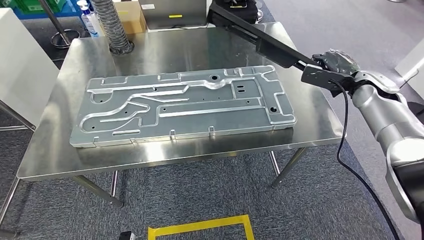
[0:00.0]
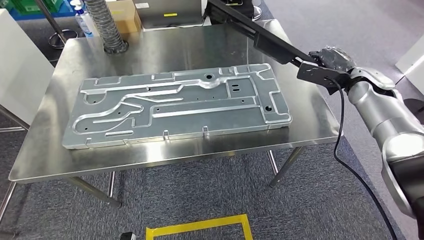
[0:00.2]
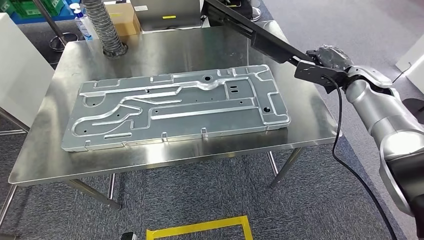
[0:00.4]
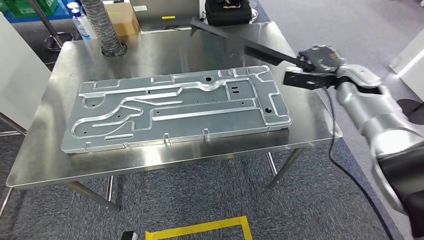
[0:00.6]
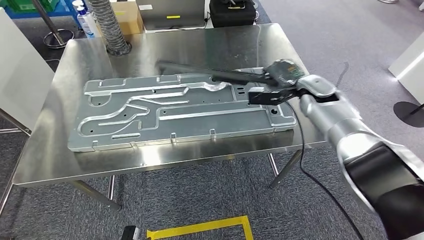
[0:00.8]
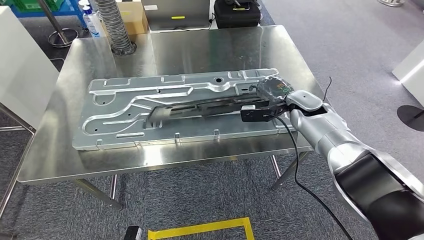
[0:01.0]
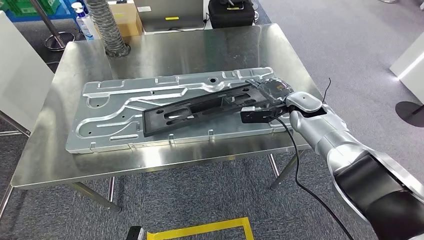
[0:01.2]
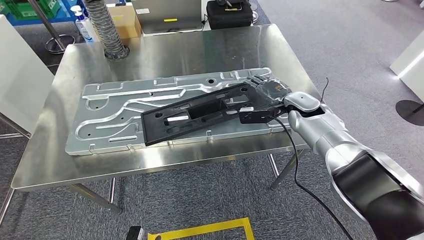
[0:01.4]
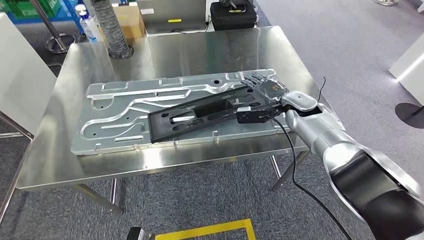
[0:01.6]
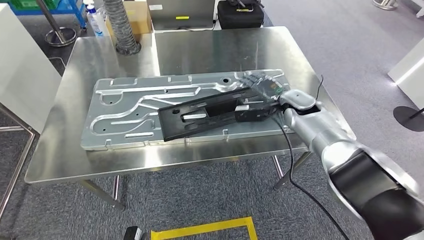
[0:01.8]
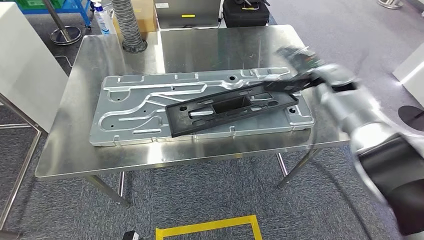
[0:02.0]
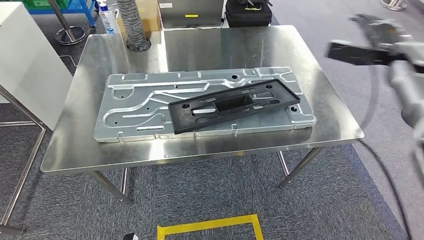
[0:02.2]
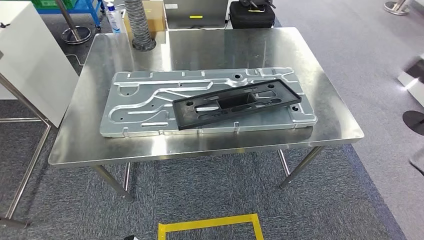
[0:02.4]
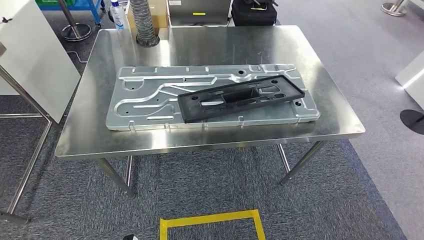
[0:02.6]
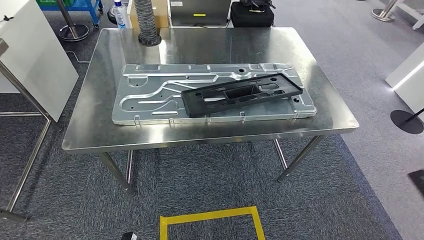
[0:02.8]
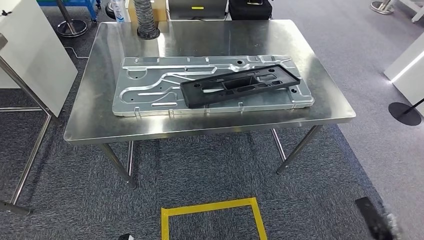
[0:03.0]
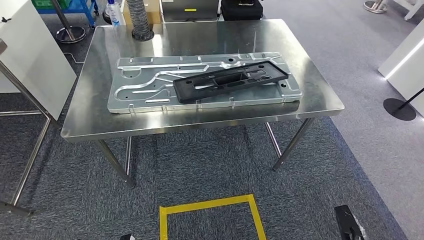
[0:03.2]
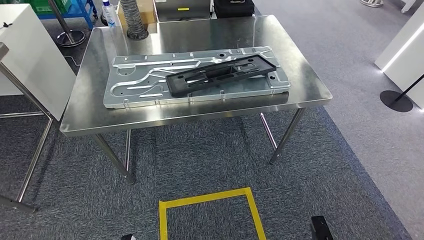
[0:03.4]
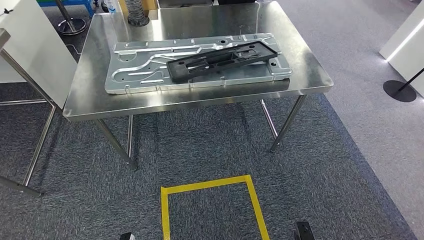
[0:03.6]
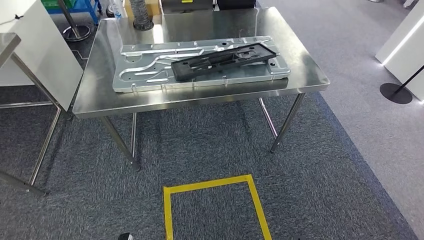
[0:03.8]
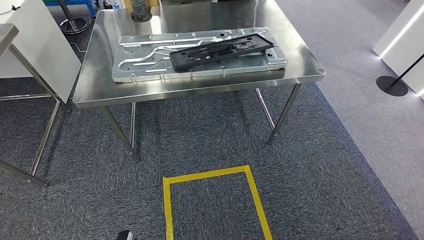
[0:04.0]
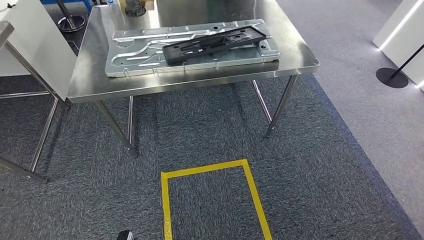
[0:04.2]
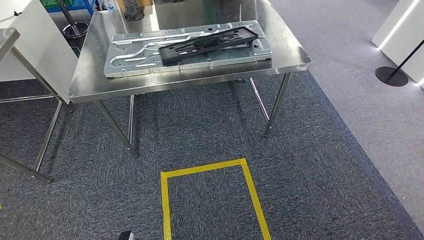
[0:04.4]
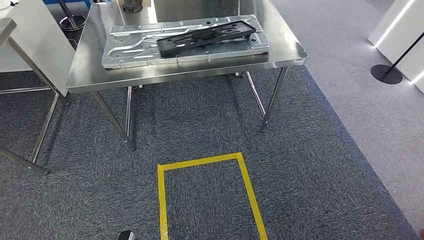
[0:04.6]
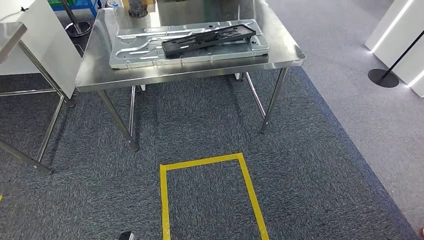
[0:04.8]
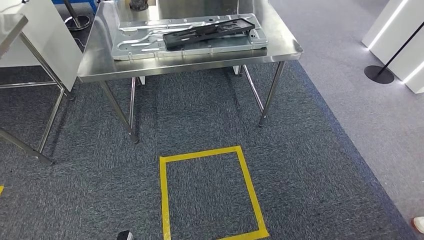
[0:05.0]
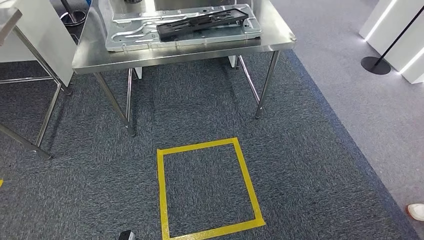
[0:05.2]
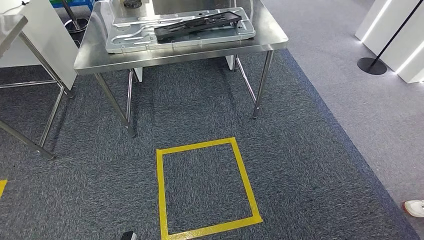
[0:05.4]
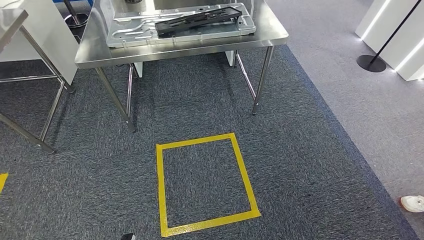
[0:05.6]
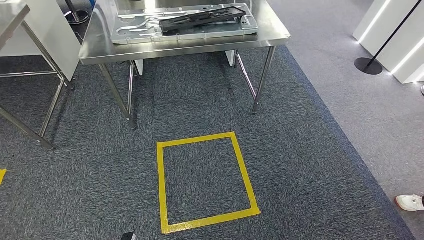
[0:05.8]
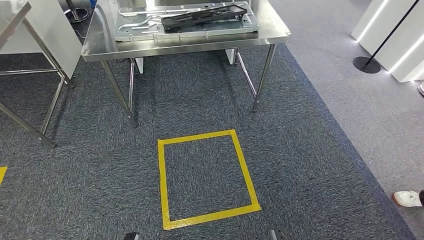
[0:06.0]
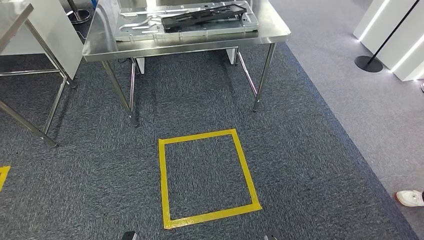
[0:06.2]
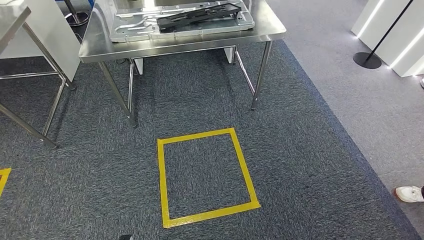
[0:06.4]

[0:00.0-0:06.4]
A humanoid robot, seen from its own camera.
Step, 0:00.0 to 0:03.6: Insert the large material into the corresponding slot on the workbench.
Step, 0:04.6 to 0:06.4: Return to the initial position at the shelf.
